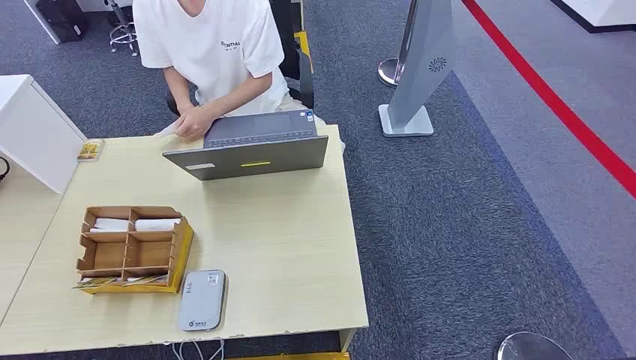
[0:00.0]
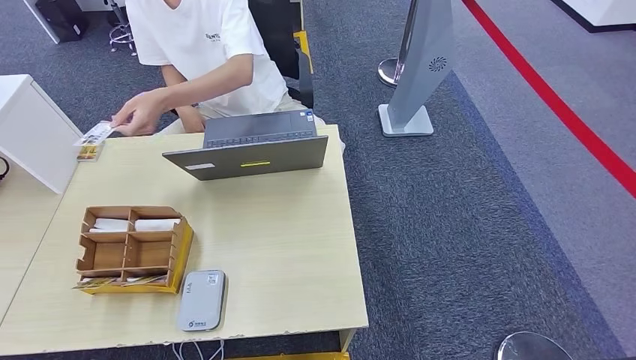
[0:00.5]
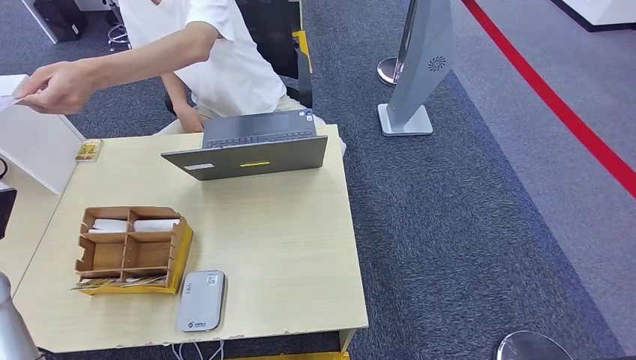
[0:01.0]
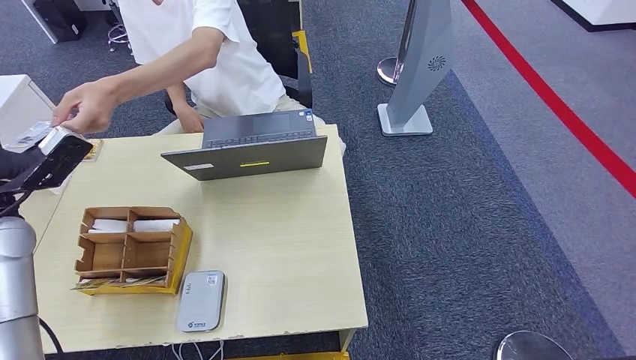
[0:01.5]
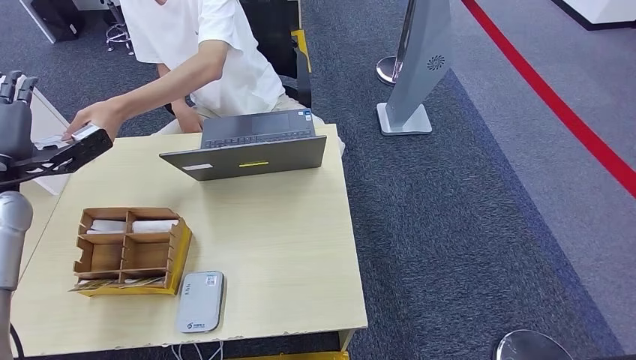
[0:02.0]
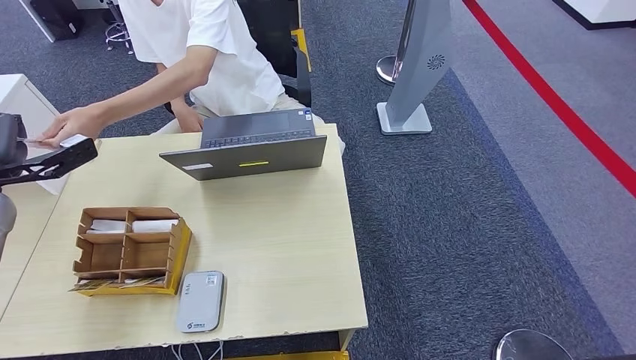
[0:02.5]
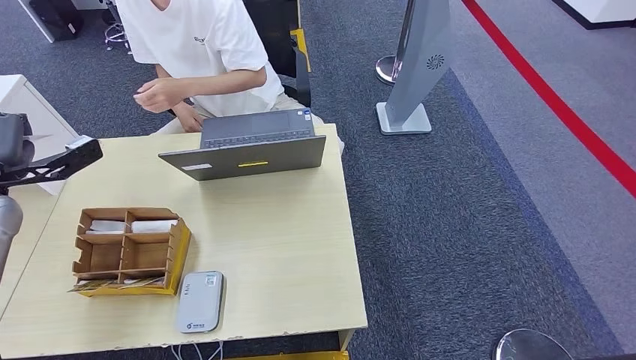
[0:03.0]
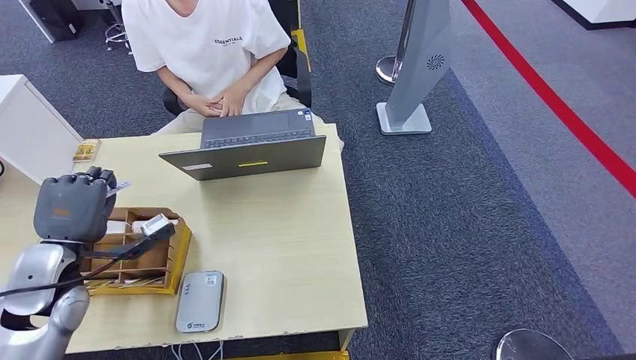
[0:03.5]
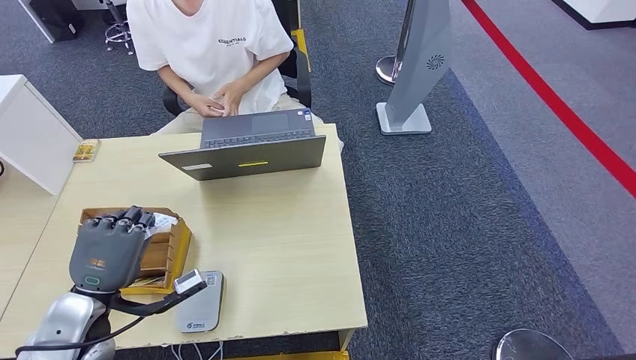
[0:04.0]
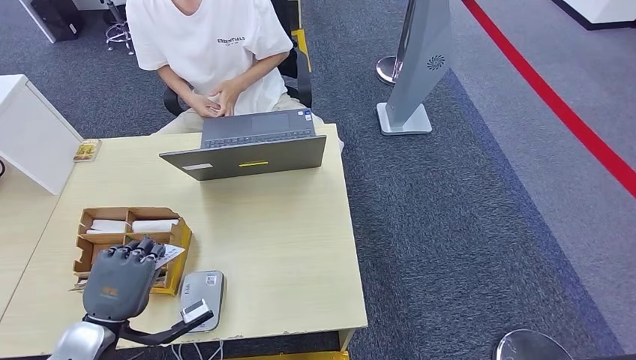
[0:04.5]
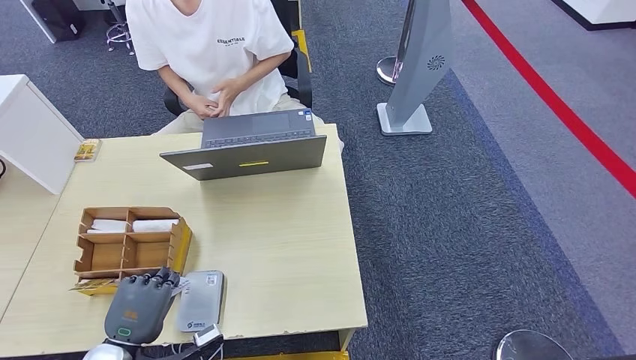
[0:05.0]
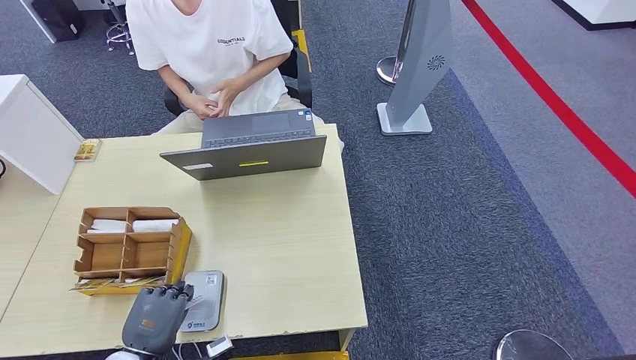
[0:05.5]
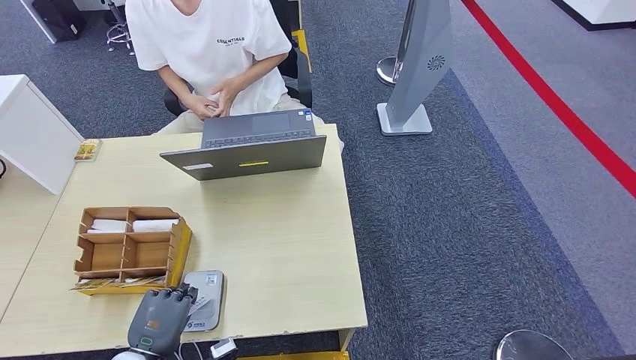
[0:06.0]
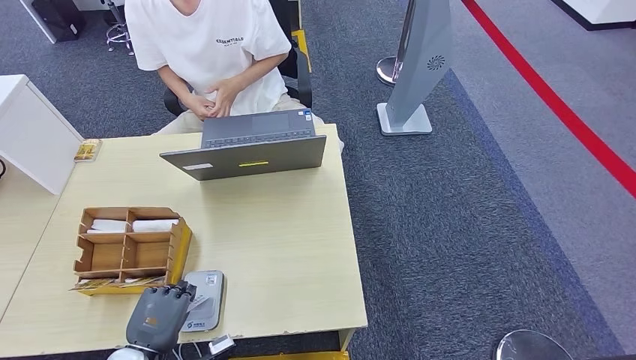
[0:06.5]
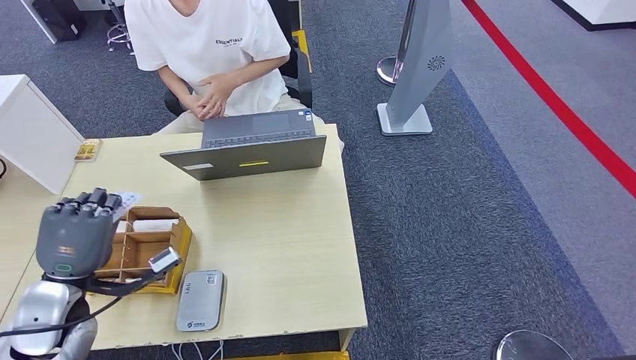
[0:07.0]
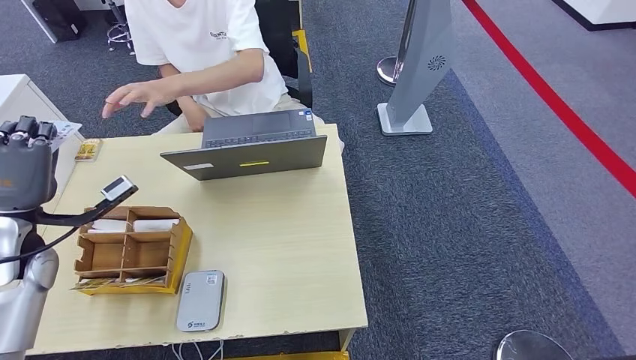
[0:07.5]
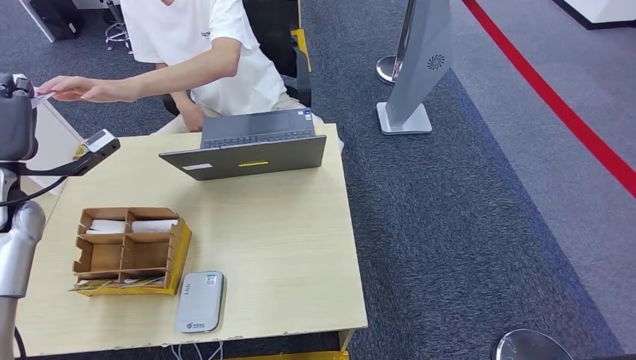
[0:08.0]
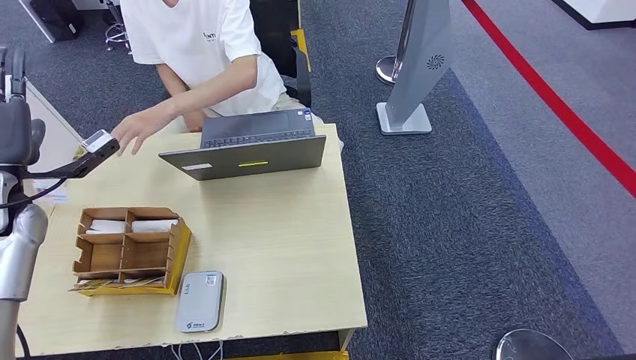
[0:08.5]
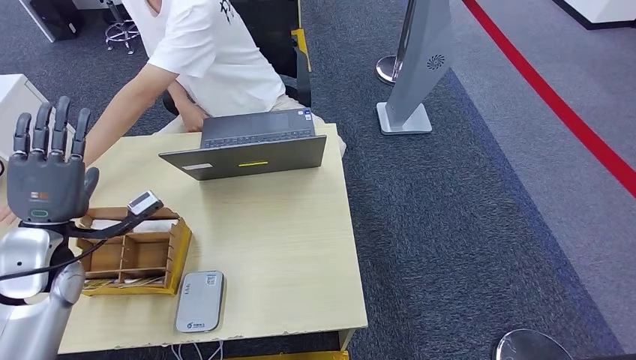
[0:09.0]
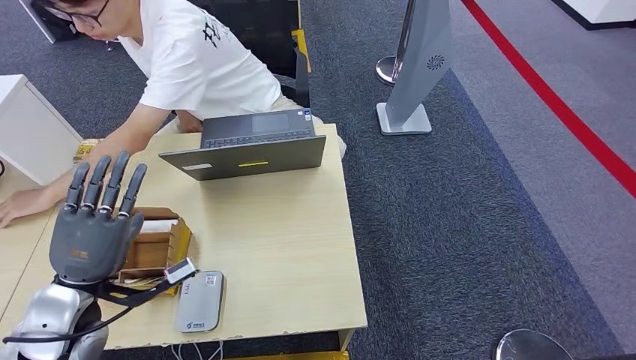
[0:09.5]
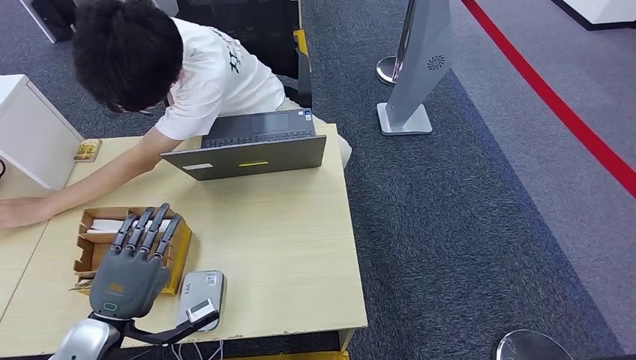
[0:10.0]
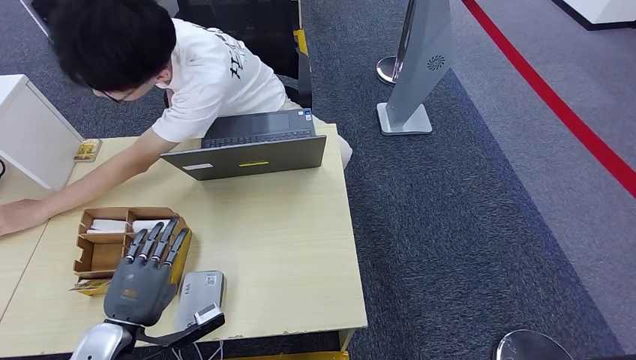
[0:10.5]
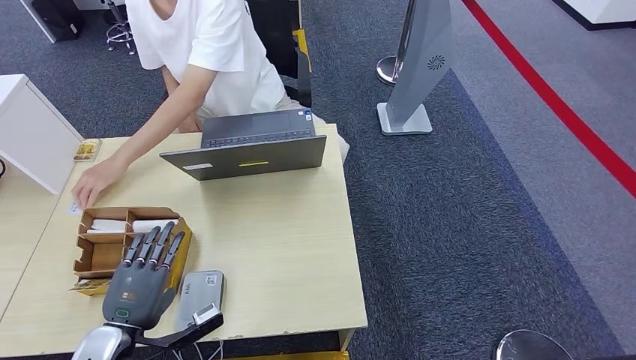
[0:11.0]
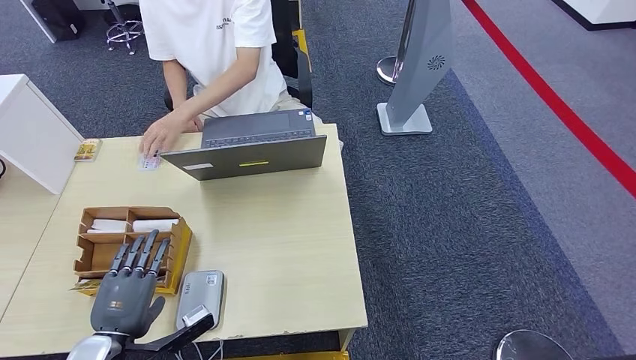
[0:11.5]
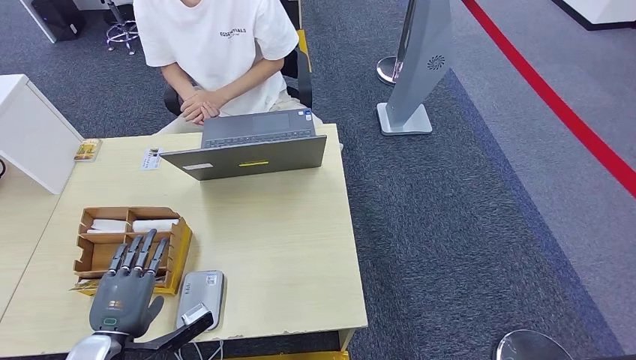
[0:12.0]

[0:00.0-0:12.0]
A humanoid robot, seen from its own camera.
Step, 0:00.0 to 0:02.5: Take the ID card from the person's hand.
Step, 0:03.0 to 0:06.0: Place the ID card on the card reader.
Step, 0:06.5 to 0:08.5: Hand the ID card to the person.
0:02.0 to 0:04.0: The left hand travels backward, downward and to the right by roughly 25 cm.
0:04.0 to 0:06.0: The left hand goes some 15 cm downward and backward.
0:06.0 to 0:08.0: The left hand heads forward, upward and to the left, covering roughly 35 cm.
0:10.0 to 0:12.0: The hands make only small movements.

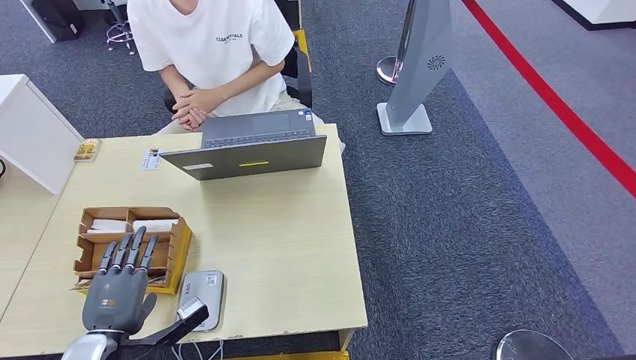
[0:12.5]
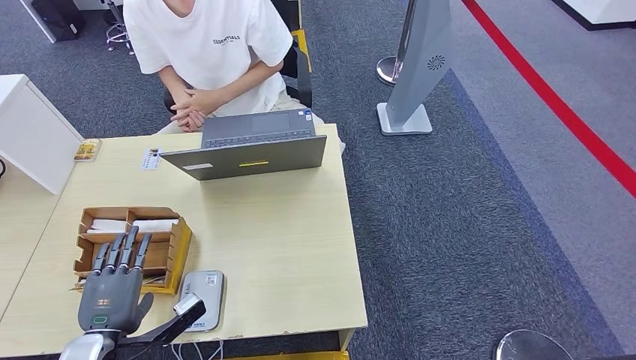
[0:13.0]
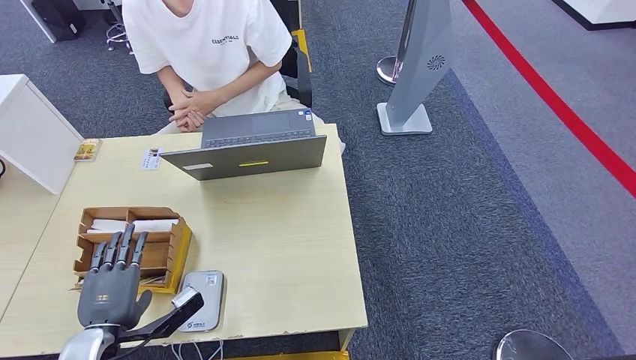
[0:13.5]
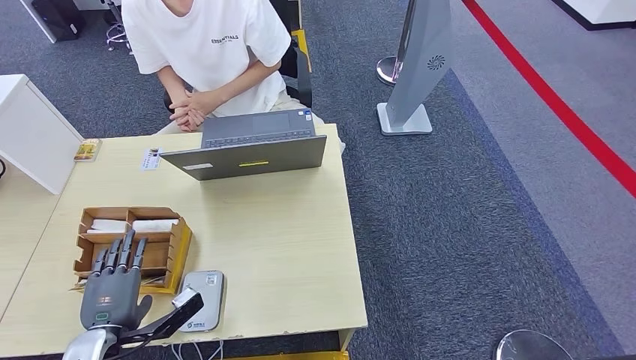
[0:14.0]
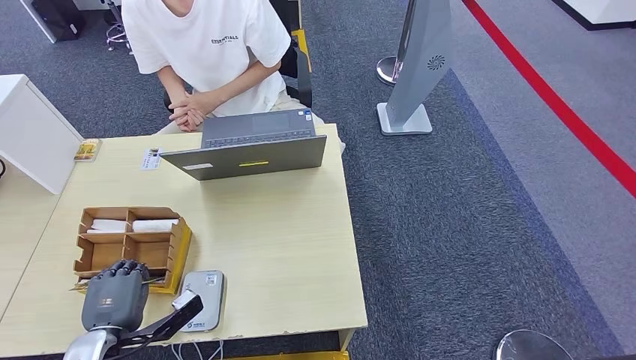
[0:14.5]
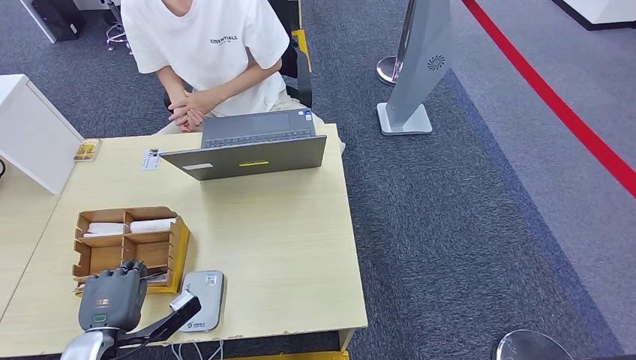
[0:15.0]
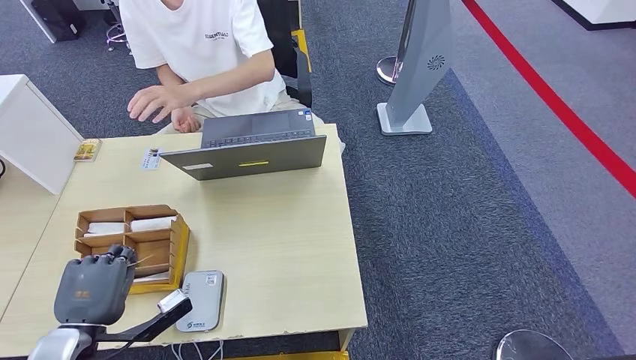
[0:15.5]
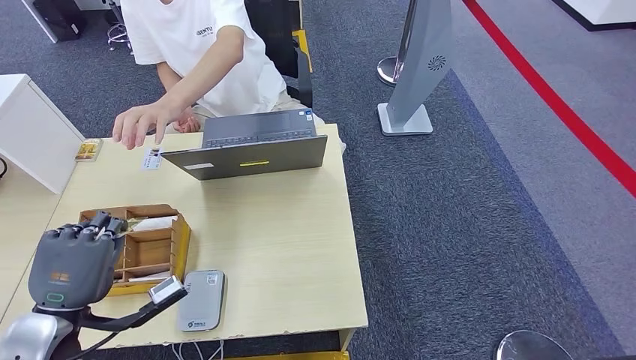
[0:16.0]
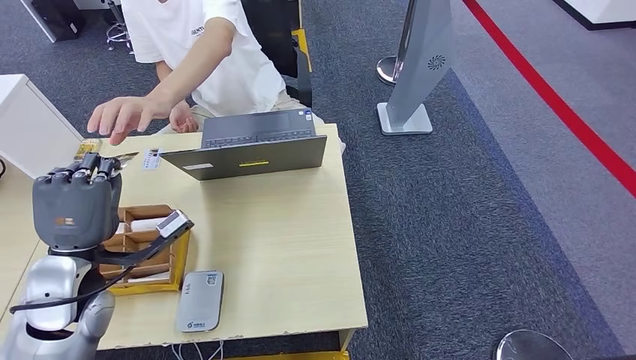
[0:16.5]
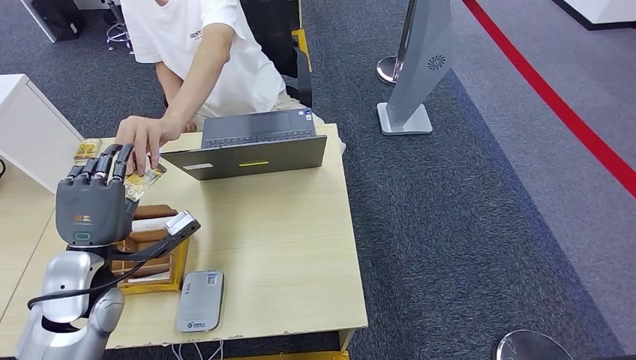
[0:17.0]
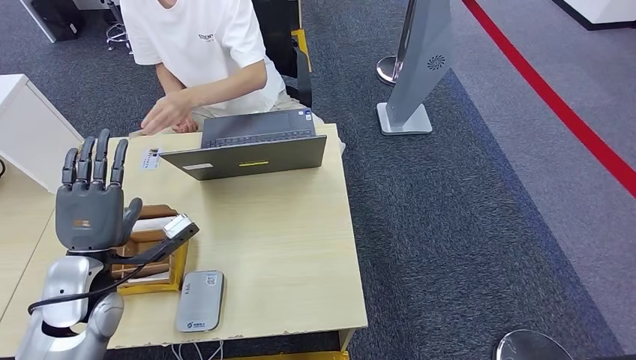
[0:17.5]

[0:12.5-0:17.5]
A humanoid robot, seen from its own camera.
Step, 0:12.5 to 0:14.5: Pick up the room key from the key card box.
Step, 0:15.0 to 0:17.5: Hand the room key to the person.
0:12.5 to 0:15.0: The hands move only a little.
0:15.0 to 0:17.5: The left hand travels upward and forward by approximately 15 cm.
